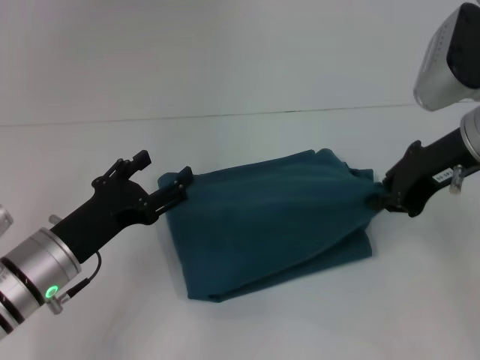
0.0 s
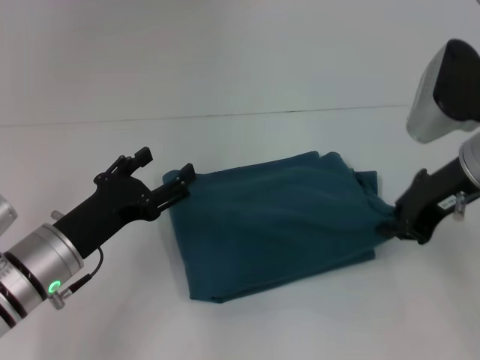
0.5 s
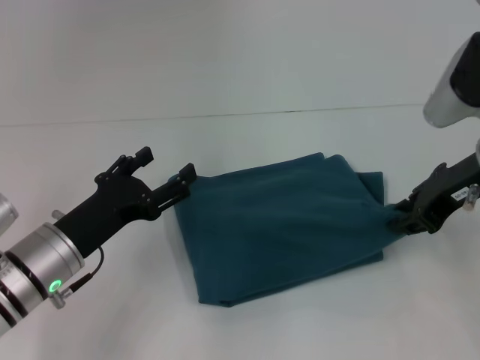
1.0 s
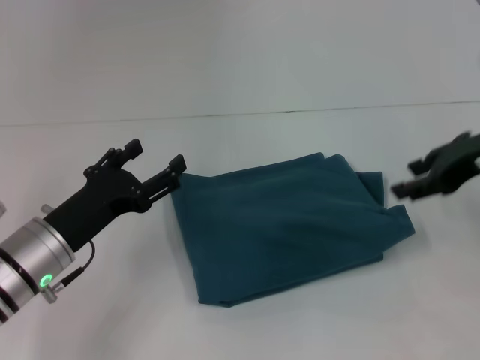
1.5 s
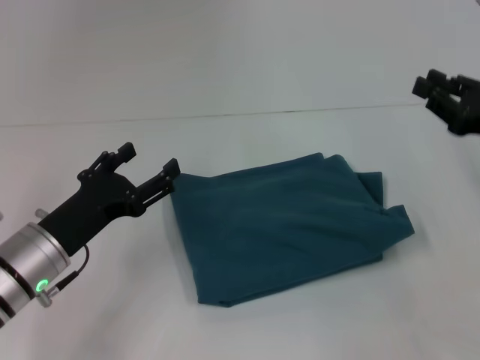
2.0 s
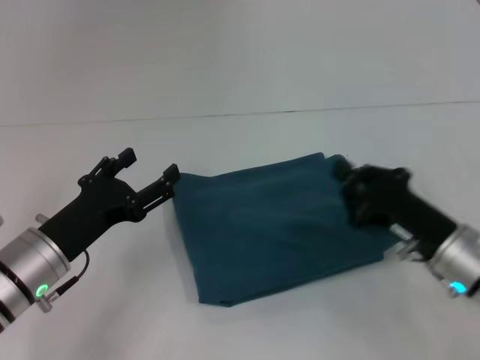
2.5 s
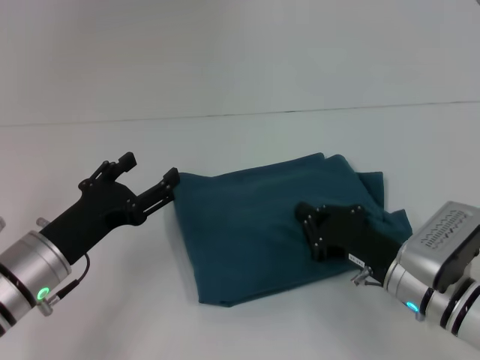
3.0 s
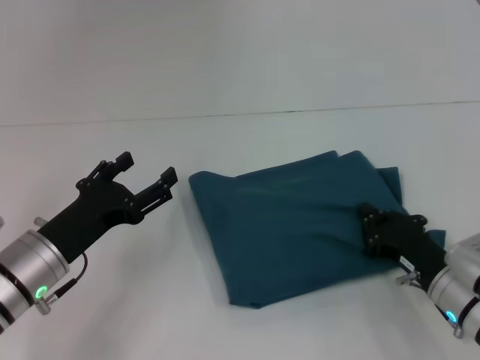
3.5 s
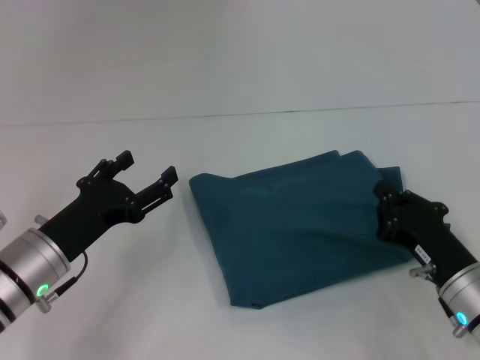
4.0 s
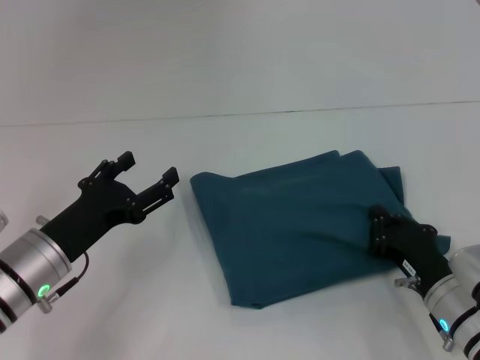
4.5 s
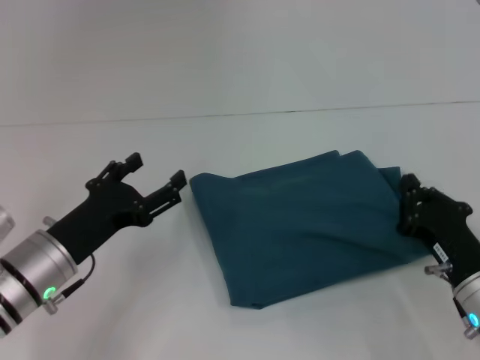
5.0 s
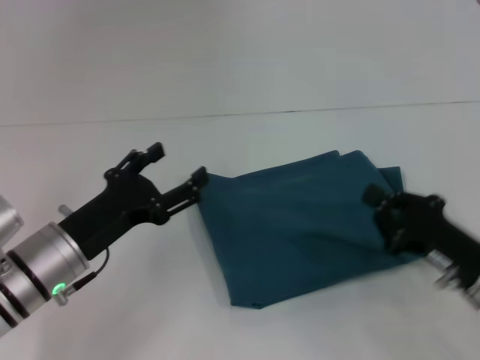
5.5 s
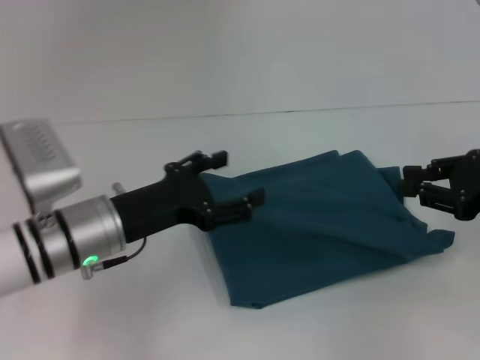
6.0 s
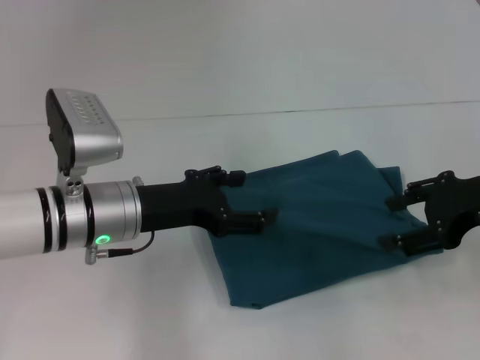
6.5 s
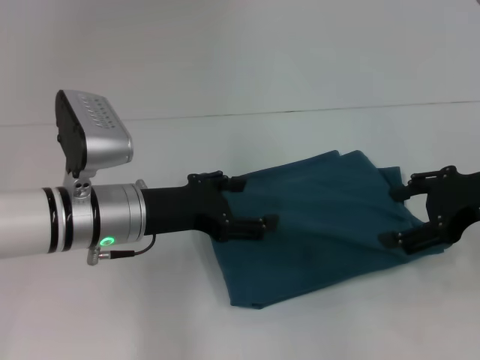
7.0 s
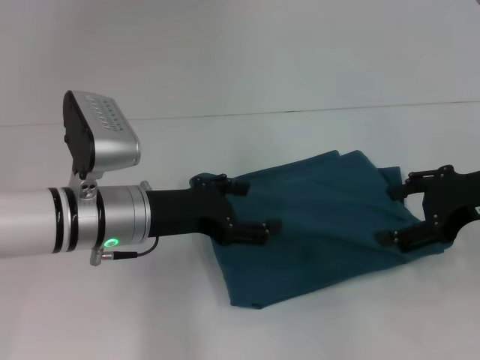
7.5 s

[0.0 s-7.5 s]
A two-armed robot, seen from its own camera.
0.0 to 2.0 s: The right gripper goes approximately 10 cm to the right and downward.
2.0 to 4.0 s: The right gripper travels downward, to the left and backward by approximately 15 cm, and closes.
4.0 to 5.5 s: The grippers stay close to where they were, moving slightly.
5.5 to 7.5 s: The left gripper heads to the right, covering approximately 5 cm. Meanwhile the right gripper shifts some 15 cm upward and forward, and opens its fingers.

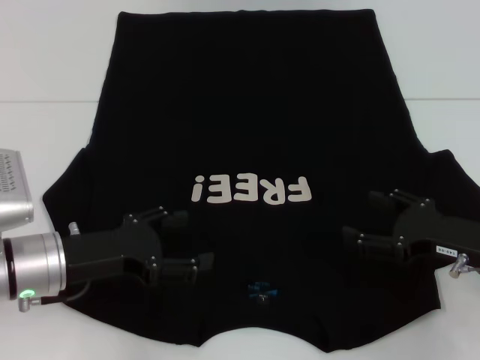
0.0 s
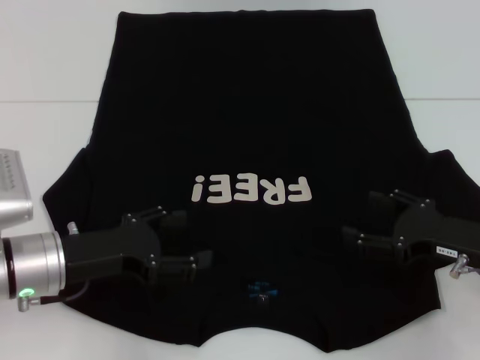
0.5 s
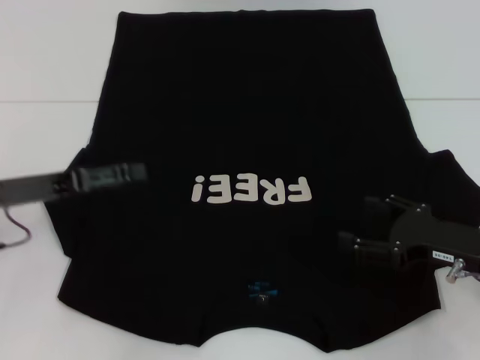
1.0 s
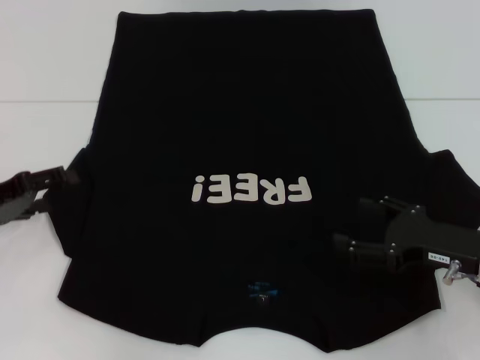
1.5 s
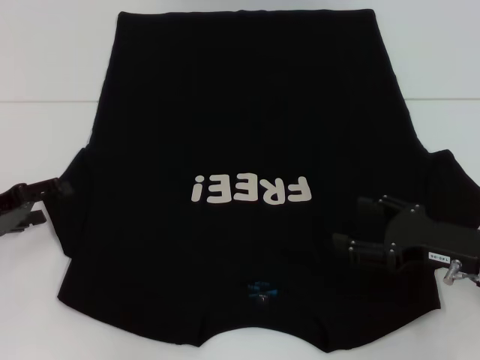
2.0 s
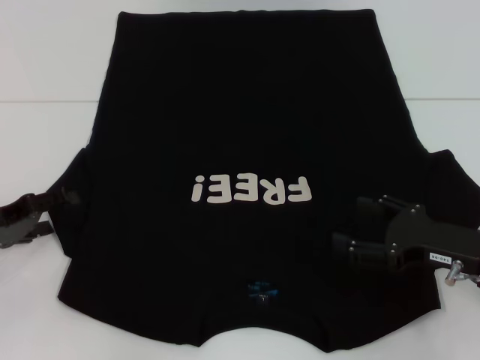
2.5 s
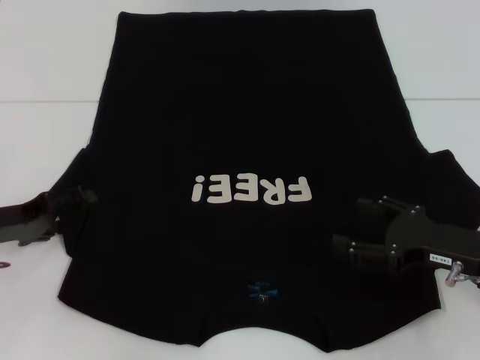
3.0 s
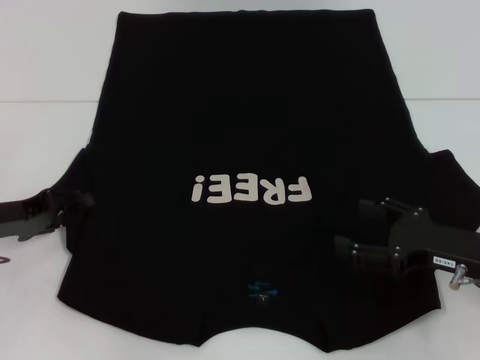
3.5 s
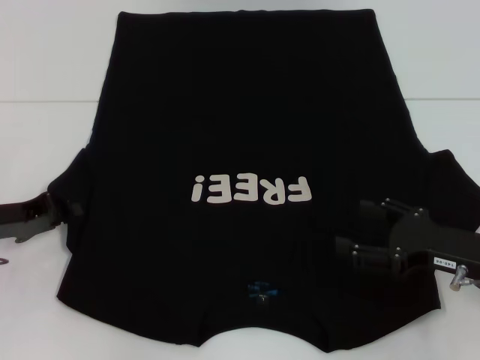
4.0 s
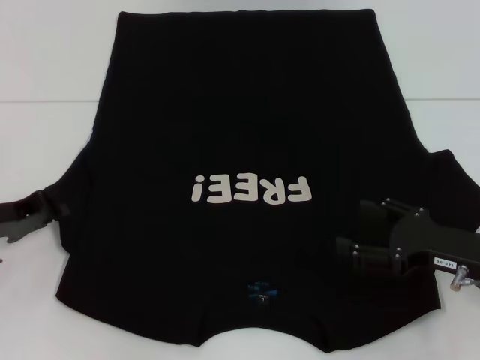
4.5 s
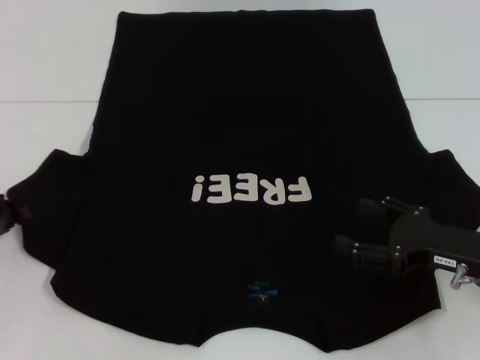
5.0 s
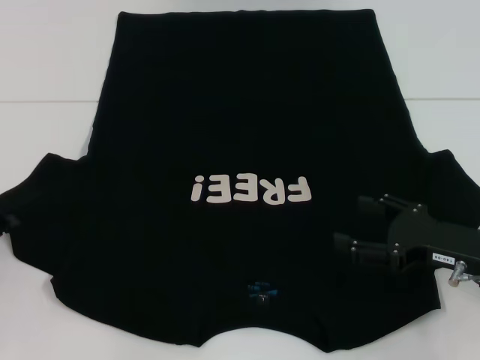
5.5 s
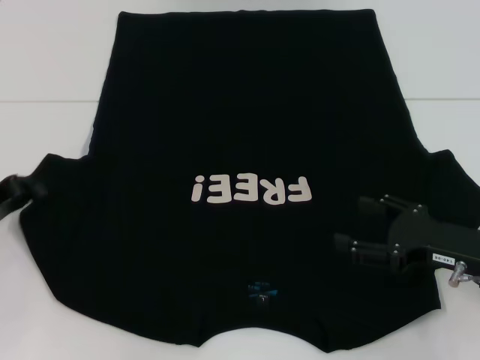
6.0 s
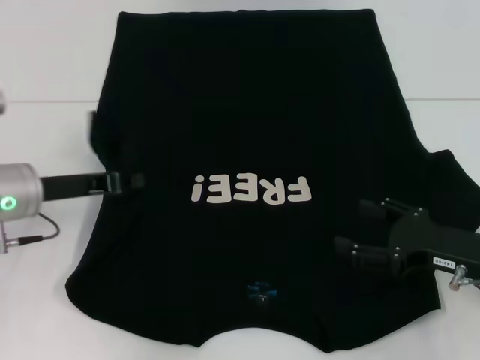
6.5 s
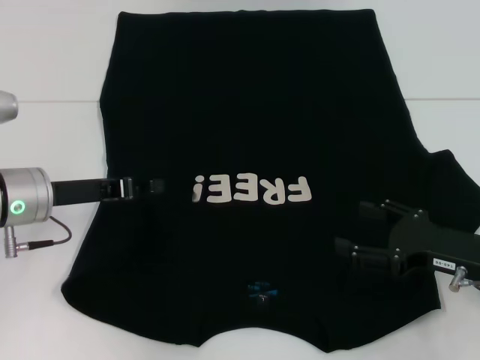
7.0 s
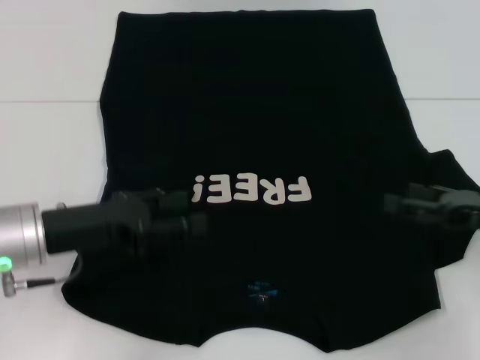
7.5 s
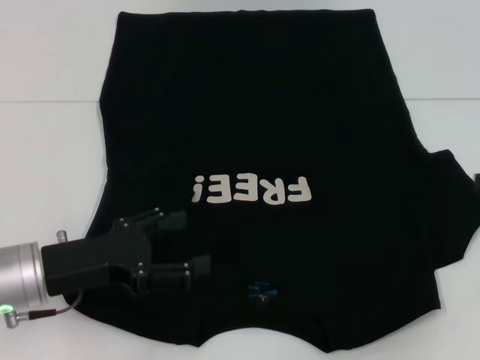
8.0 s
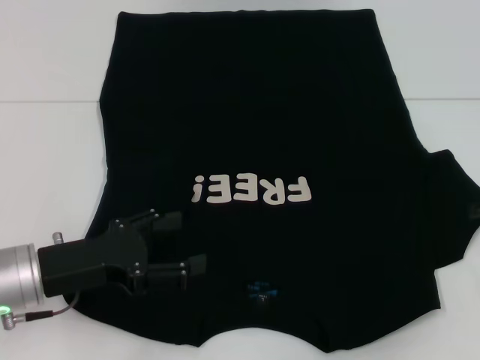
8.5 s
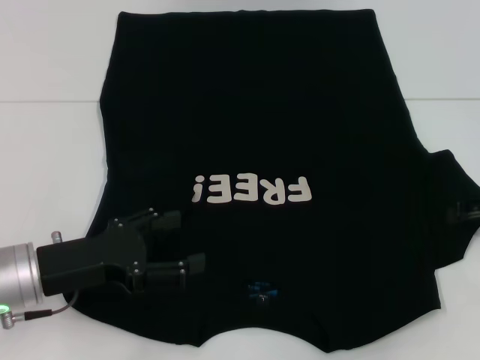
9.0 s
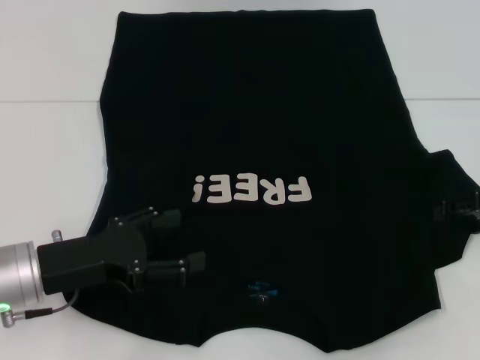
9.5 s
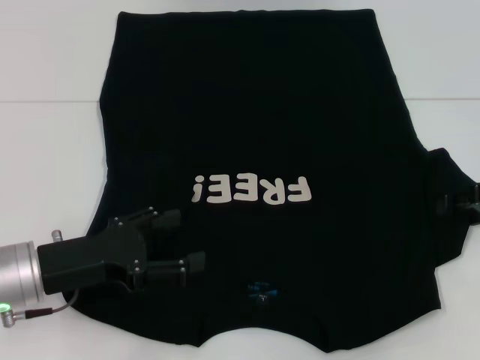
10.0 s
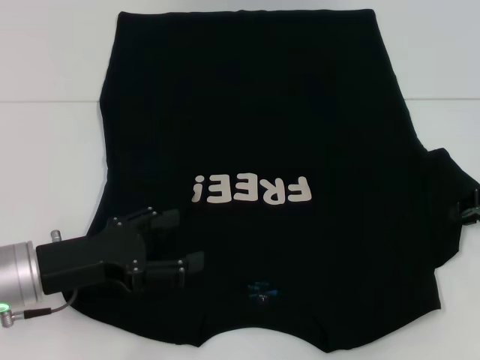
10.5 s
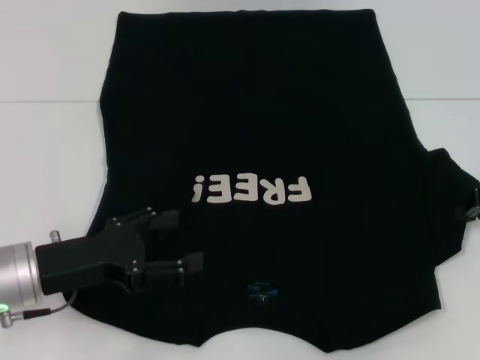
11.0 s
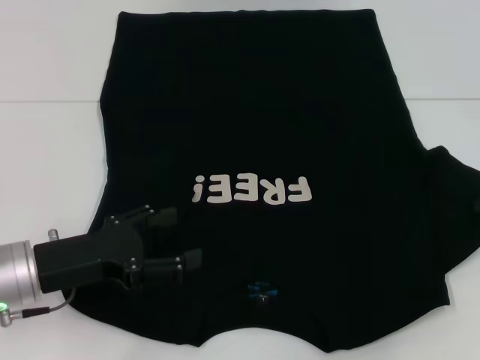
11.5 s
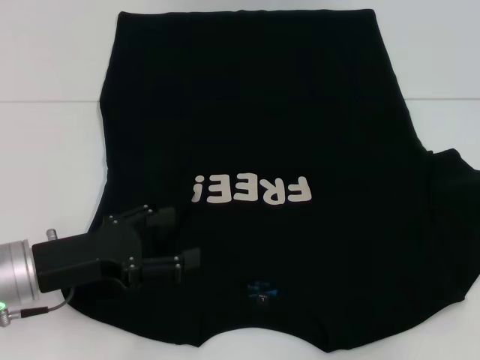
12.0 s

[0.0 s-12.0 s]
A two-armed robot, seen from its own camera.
Step, 0.0 to 8.0 s: Fold the bottom left sleeve with your left hand.
0.0 to 2.0 s: The left gripper moves to the left, about 10 cm.
2.0 to 4.0 s: The left gripper closes up.
4.0 to 6.0 s: The left gripper closes up.
6.0 to 8.0 s: The left gripper is displaced to the right by roughly 10 cm, and opens up. The right gripper shifts about 15 cm to the right, upward and forward.
10.0 to 12.0 s: The right gripper closes.

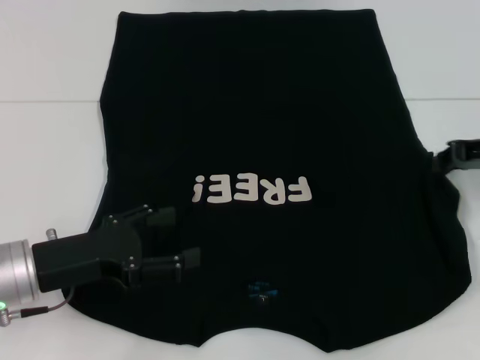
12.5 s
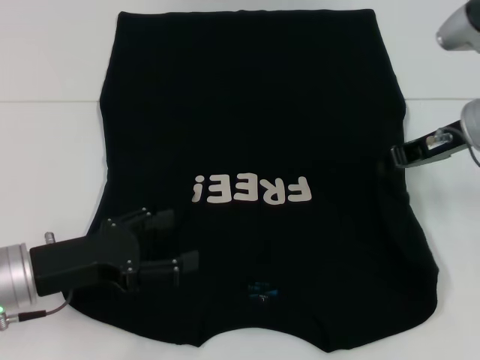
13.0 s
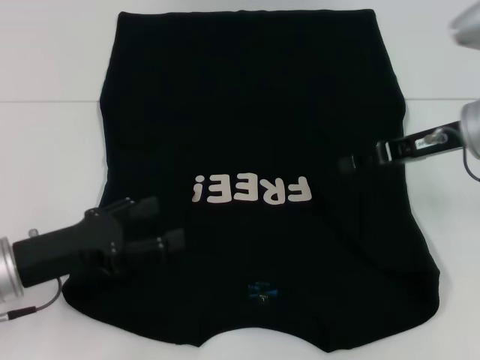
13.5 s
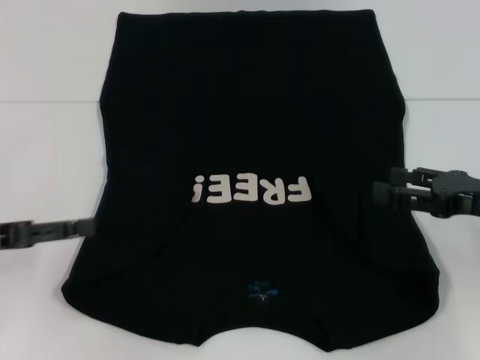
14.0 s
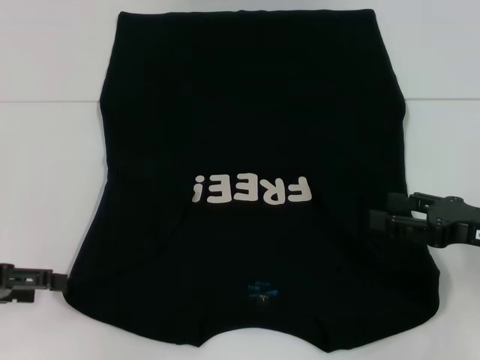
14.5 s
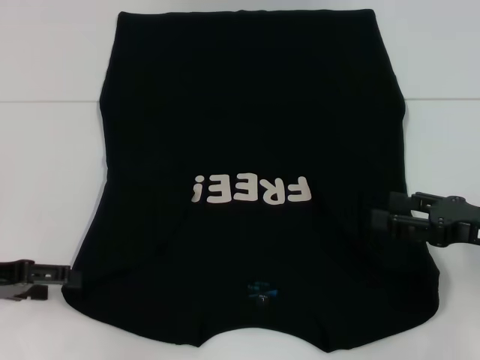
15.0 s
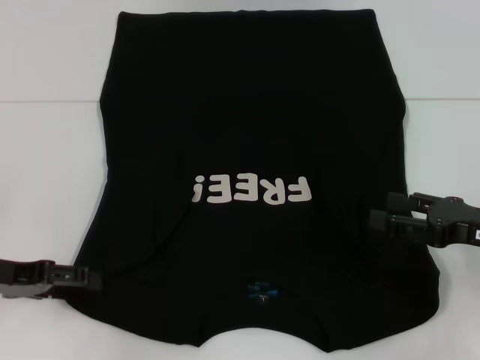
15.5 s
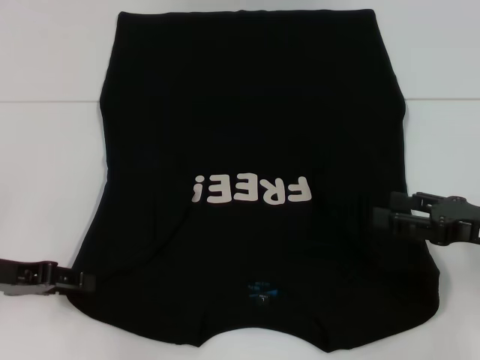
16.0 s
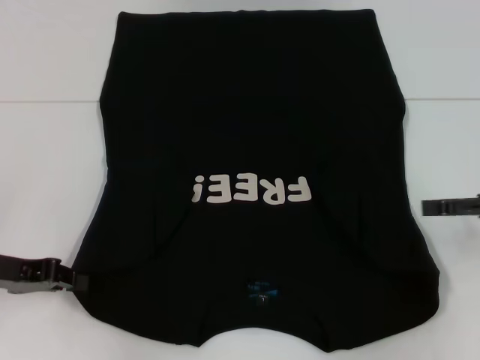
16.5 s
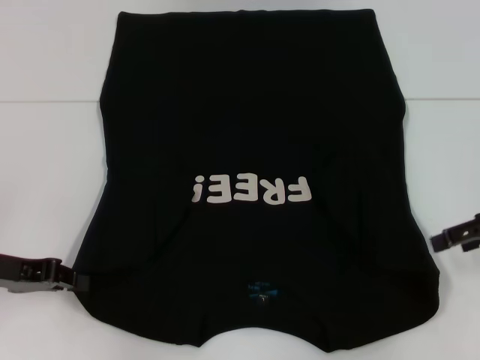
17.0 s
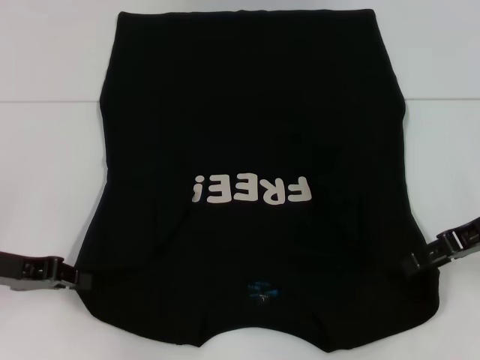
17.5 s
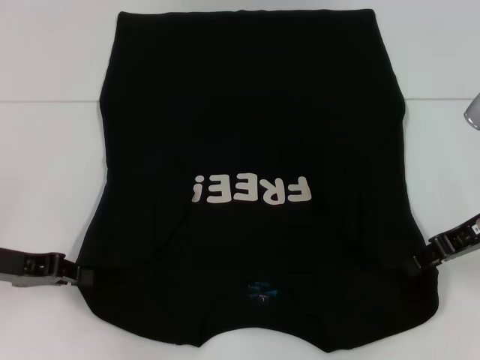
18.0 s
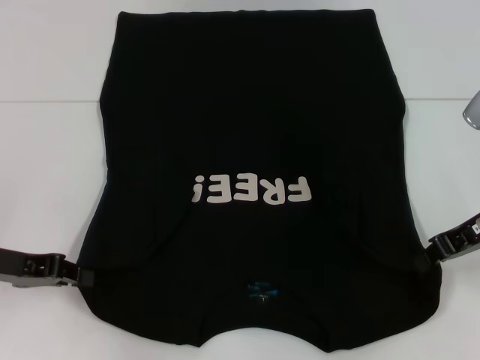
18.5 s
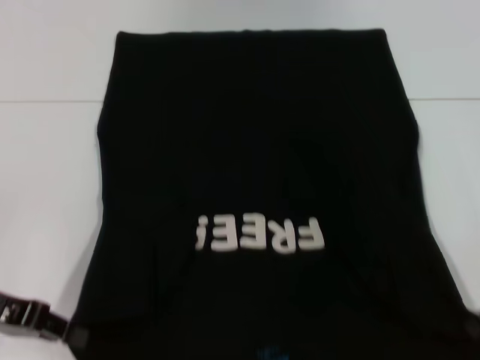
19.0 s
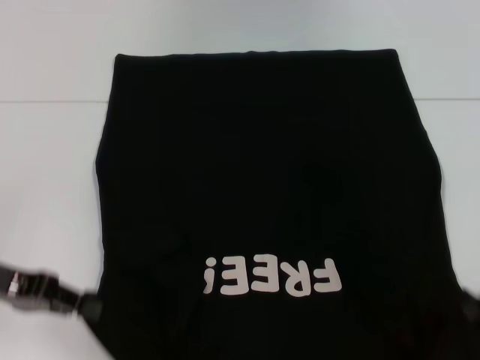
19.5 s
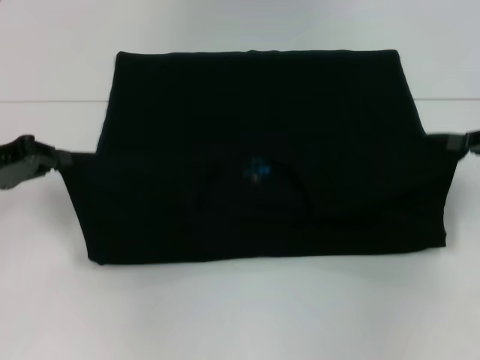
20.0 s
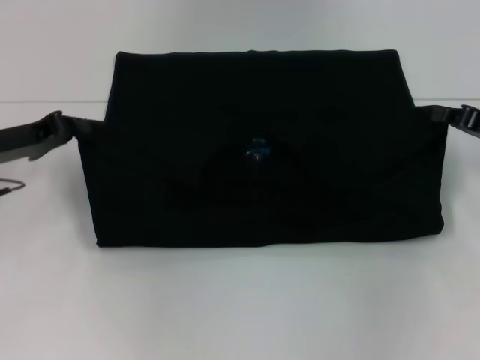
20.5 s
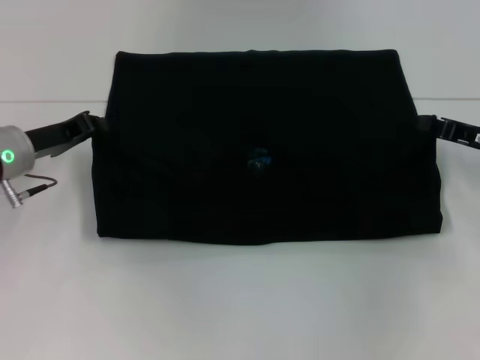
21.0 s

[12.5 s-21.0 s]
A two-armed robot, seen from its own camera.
Step, 13.5 to 18.5 s: Grab the bottom left corner with your left hand.
Step, 13.5 to 18.5 s: Grab the bottom right corner with your right hand.
Step, 19.0 to 20.5 s: Fold the clothes with your left hand.
Step, 19.0 to 20.5 s: Fold the clothes with your right hand.
12.5 to 14.5 s: The left gripper shifts some 10 cm to the left. The right gripper goes roughly 10 cm backward and downward, and opens its fingers.
14.5 to 16.5 s: The left gripper ends up approximately 5 cm from where it was, and closes; the right gripper ends up roughly 5 cm from where it was.
16.5 to 19.0 s: The right gripper closes its fingers.
19.0 to 21.0 s: The right gripper is displaced forward by approximately 5 cm. Meanwhile the left gripper is displaced forward by about 10 cm.
